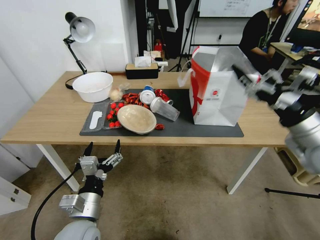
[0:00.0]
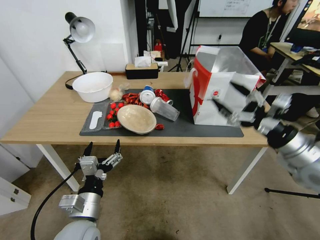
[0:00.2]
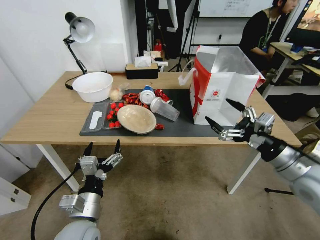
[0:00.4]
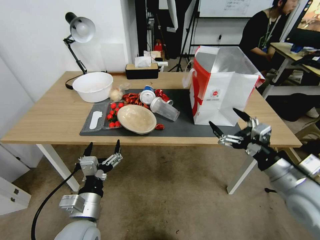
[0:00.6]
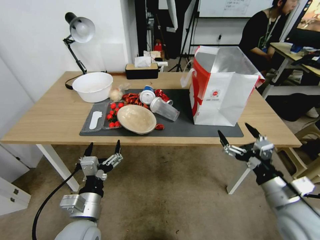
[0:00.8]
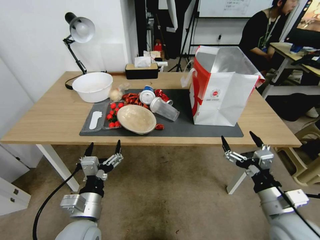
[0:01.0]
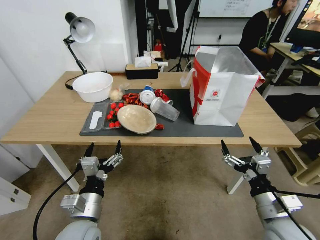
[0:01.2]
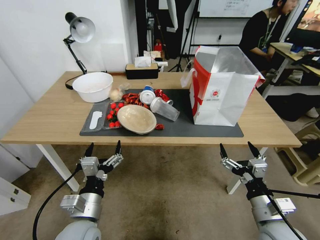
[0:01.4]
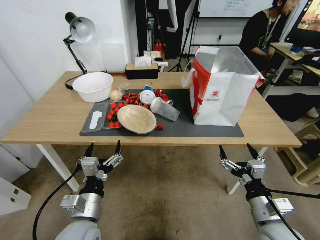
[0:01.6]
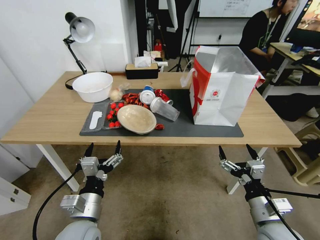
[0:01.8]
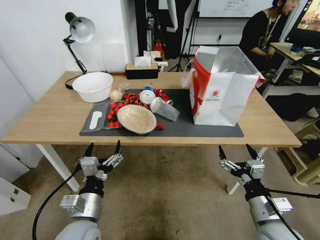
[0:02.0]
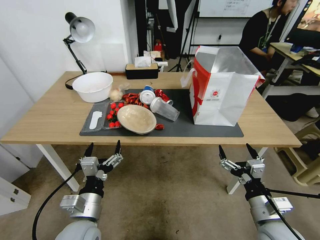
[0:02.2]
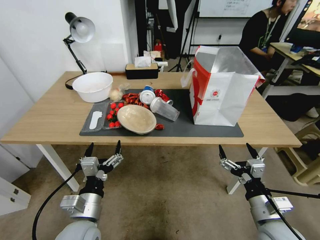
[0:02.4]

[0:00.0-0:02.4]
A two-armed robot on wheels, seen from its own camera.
Task of the whole recording: Pick up the food delivery bag from the floor and place it on the table.
0:00.0 to 0:01.2: The right gripper is displaced downward and backward by about 25 cm.
0:01.2 to 0:02.4: The grippers move only a little.

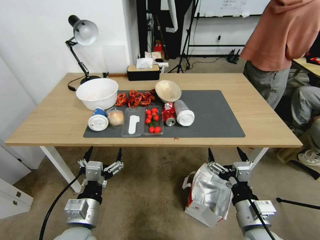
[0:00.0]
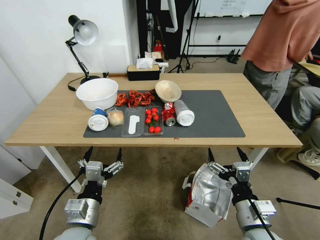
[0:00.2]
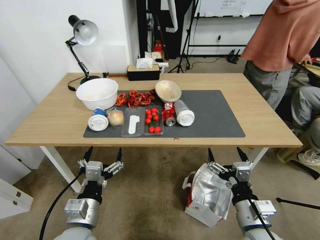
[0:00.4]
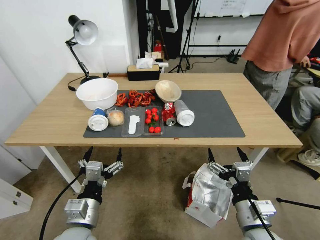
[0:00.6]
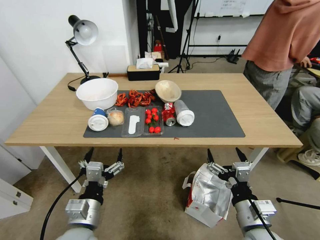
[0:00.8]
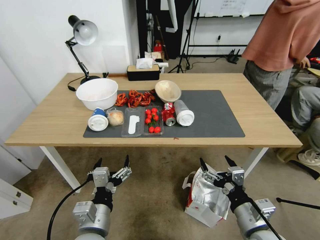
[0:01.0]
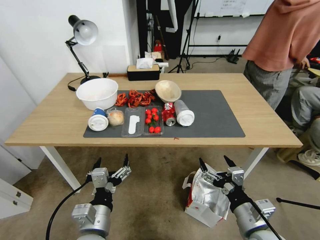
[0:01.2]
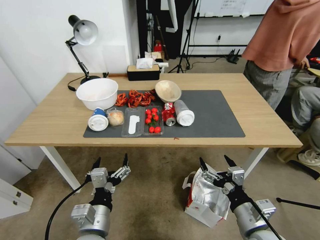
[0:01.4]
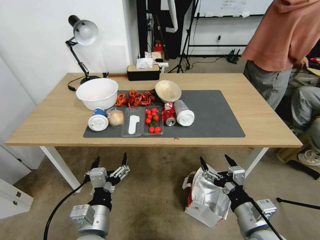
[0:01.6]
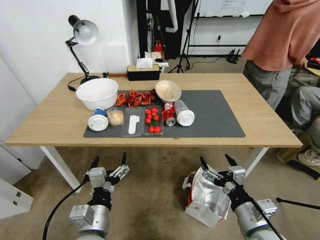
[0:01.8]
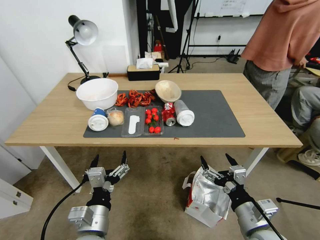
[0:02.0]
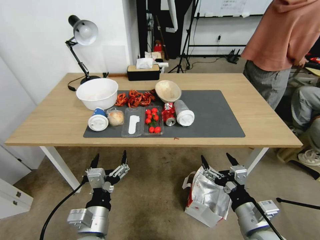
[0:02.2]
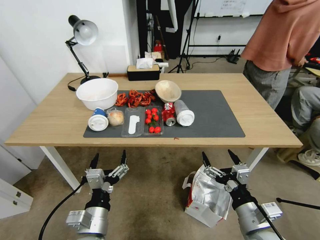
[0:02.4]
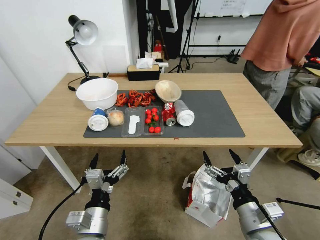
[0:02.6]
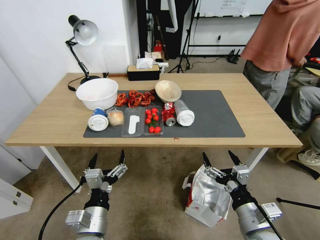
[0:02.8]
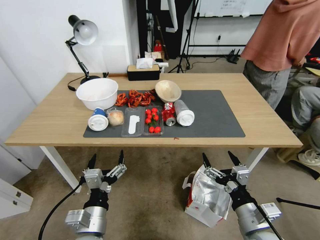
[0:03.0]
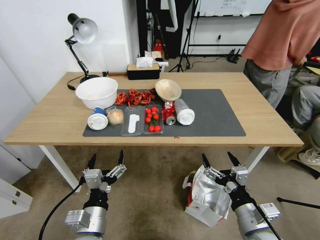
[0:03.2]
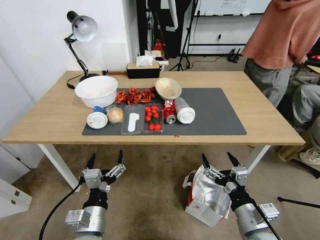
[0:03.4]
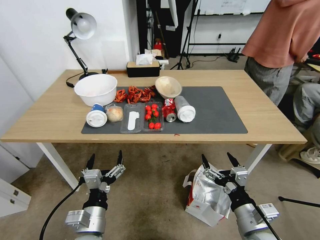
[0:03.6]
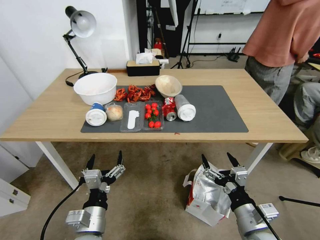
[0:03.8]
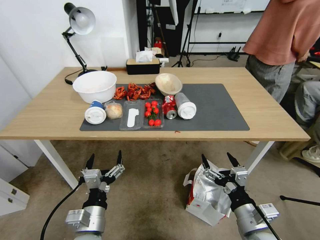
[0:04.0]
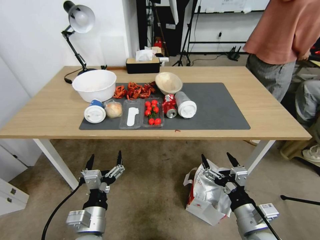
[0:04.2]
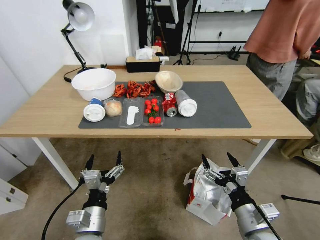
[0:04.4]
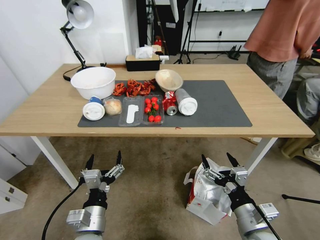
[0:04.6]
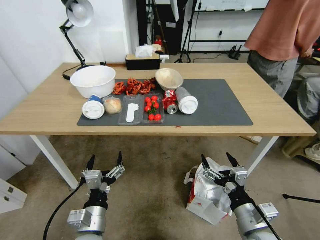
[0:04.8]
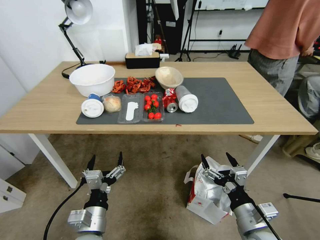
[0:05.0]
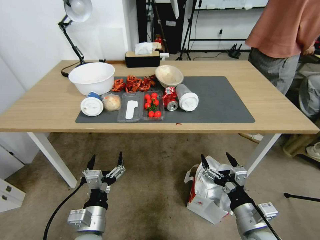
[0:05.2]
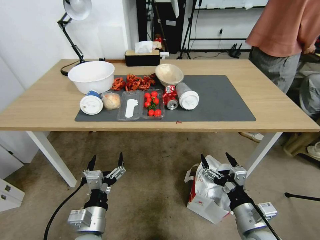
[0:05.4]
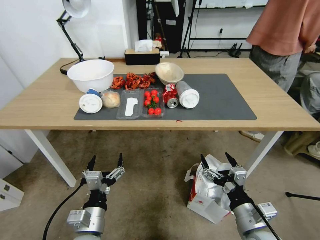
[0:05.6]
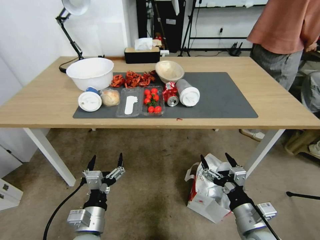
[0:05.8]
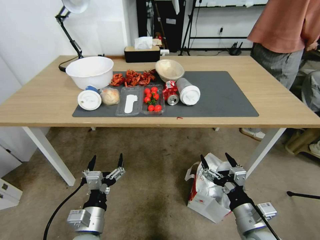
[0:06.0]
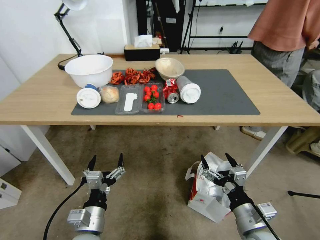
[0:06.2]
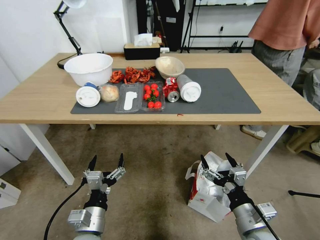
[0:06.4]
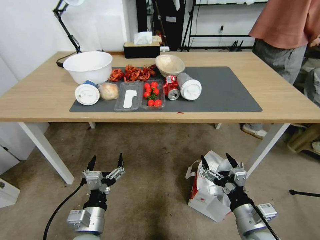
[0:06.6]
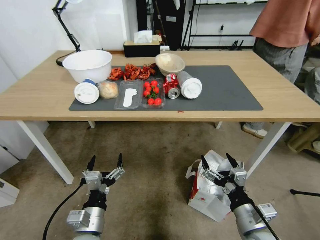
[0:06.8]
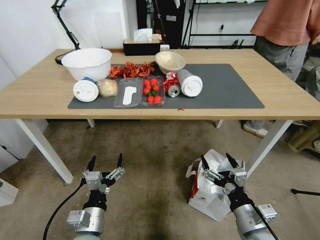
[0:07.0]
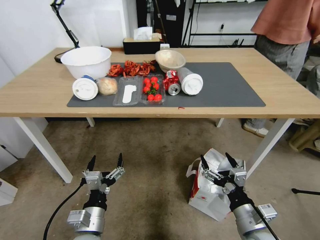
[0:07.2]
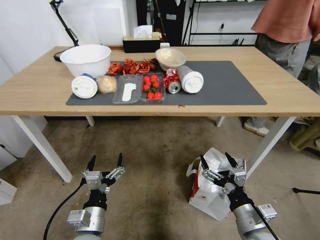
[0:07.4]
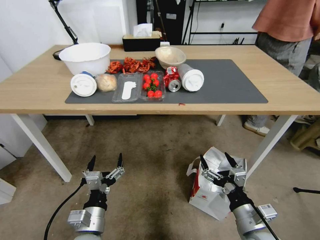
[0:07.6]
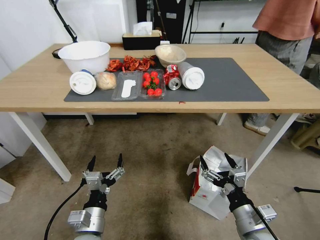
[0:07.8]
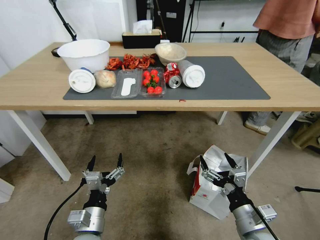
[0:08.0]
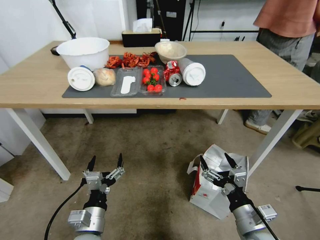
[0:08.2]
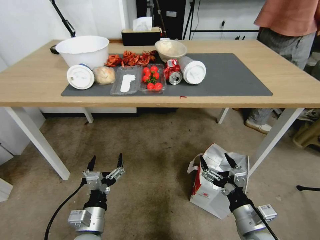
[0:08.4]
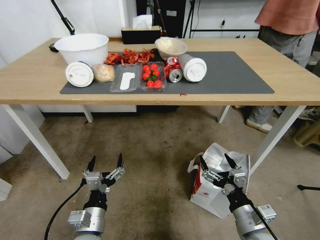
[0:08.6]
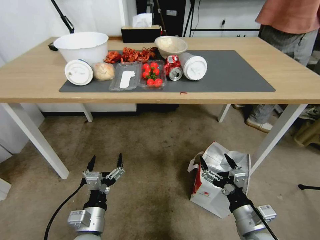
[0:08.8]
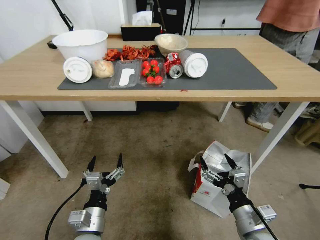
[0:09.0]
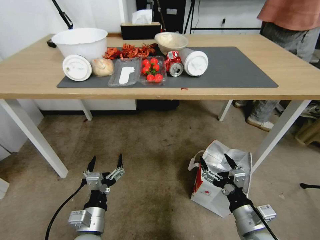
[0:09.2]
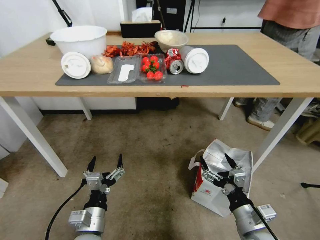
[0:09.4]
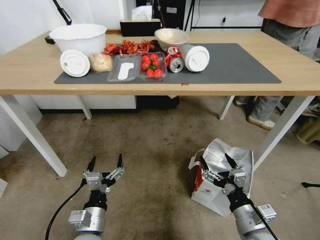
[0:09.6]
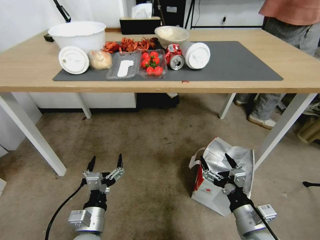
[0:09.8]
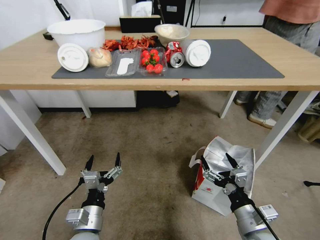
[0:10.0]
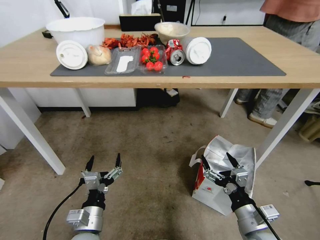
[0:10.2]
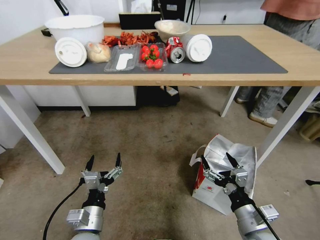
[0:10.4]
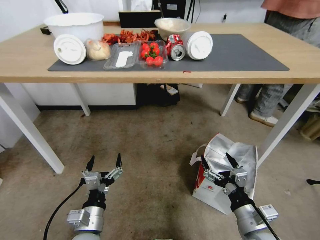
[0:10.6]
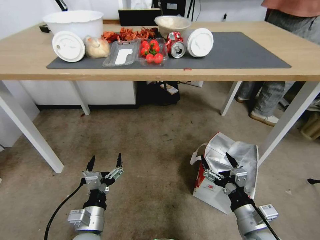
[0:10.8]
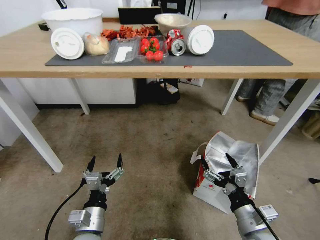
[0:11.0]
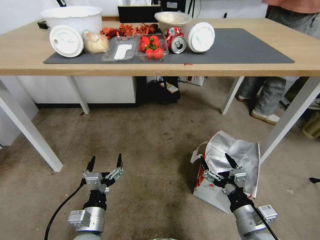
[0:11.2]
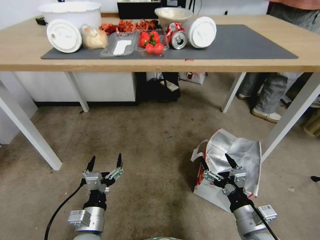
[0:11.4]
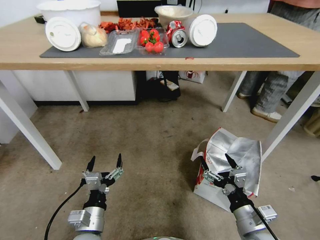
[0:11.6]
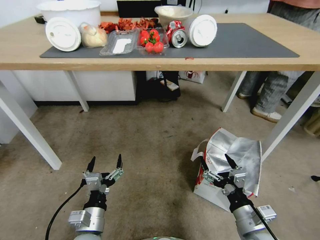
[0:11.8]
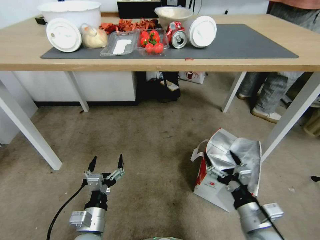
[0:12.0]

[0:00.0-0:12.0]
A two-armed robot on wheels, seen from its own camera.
Task of the whole recording: Pick up the food delivery bag from the floor and place it on the table.
0:01.6 to 0:03.0: There are only small adjustments of the grippers.

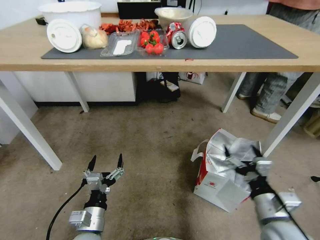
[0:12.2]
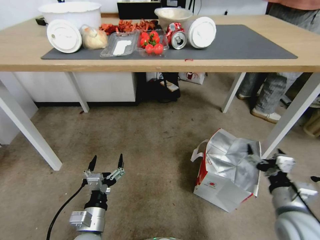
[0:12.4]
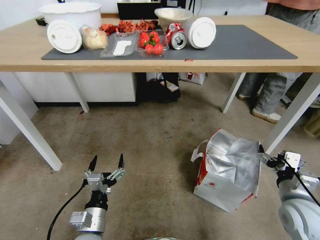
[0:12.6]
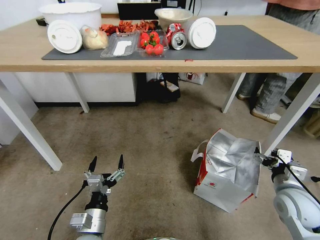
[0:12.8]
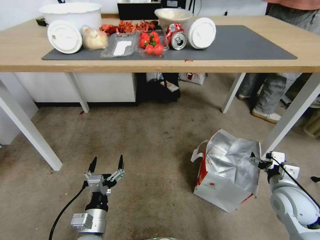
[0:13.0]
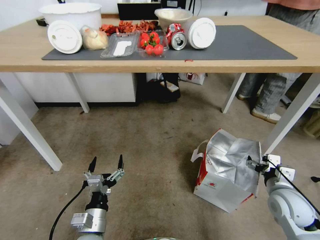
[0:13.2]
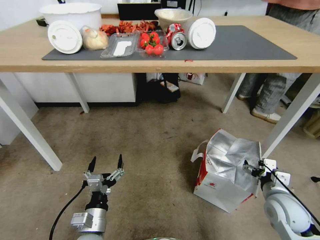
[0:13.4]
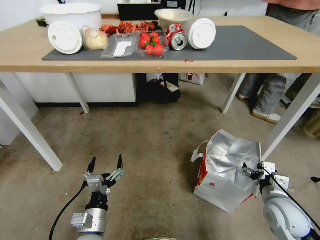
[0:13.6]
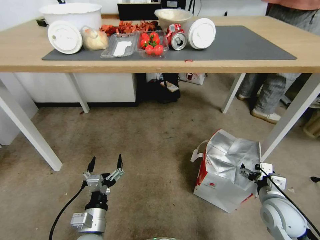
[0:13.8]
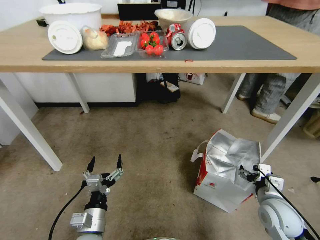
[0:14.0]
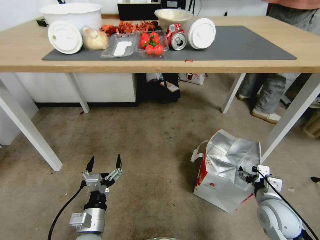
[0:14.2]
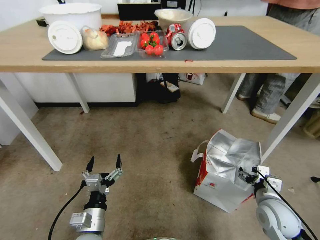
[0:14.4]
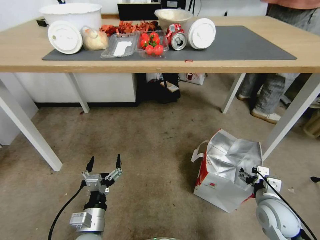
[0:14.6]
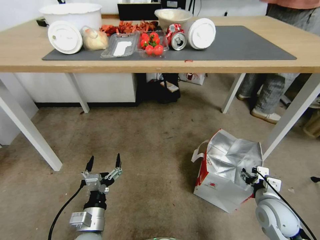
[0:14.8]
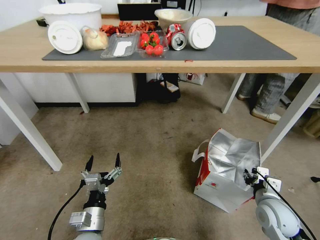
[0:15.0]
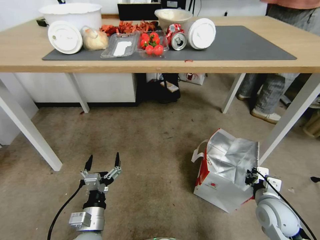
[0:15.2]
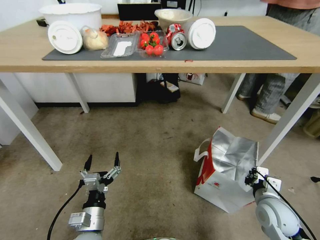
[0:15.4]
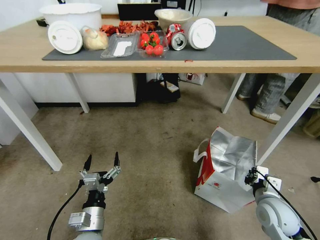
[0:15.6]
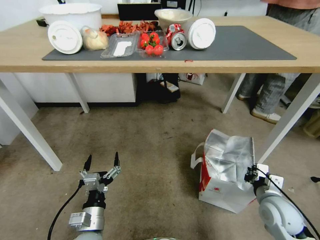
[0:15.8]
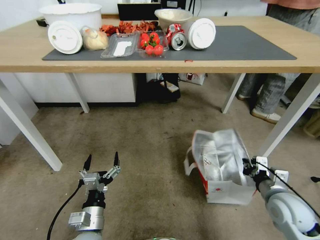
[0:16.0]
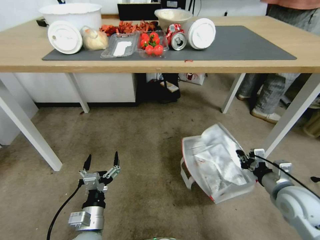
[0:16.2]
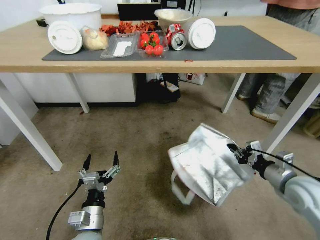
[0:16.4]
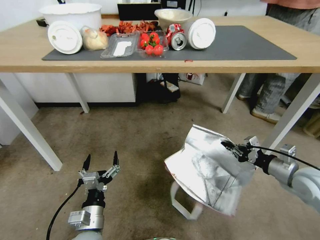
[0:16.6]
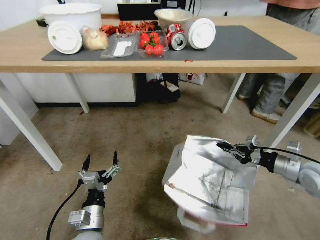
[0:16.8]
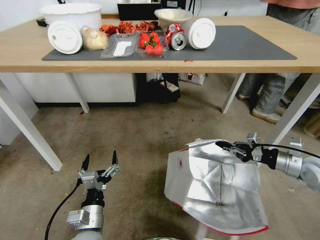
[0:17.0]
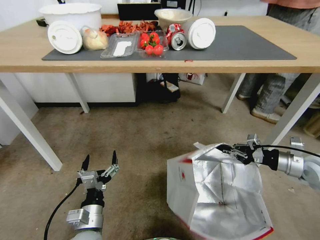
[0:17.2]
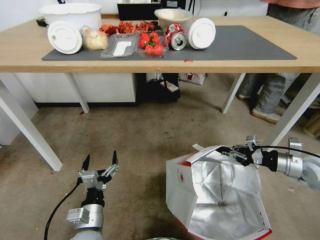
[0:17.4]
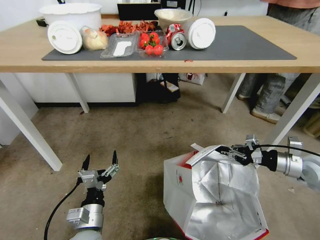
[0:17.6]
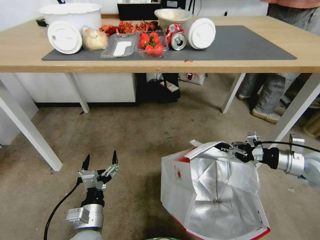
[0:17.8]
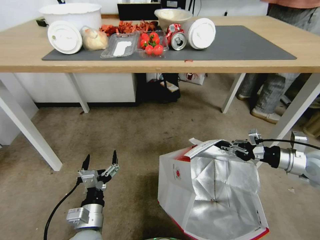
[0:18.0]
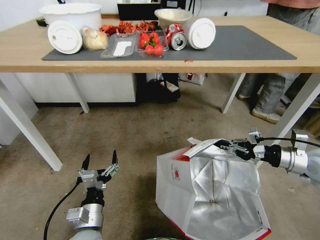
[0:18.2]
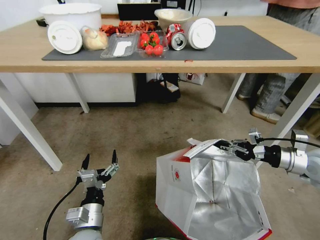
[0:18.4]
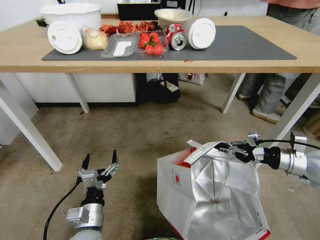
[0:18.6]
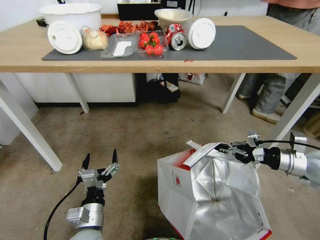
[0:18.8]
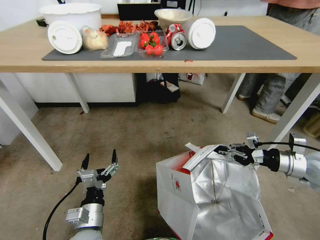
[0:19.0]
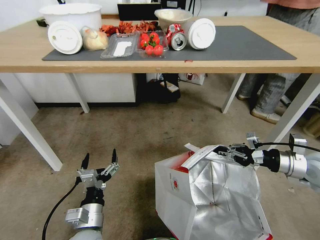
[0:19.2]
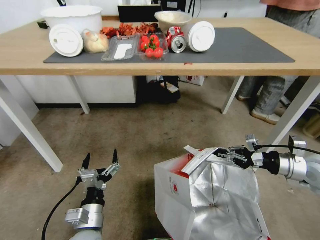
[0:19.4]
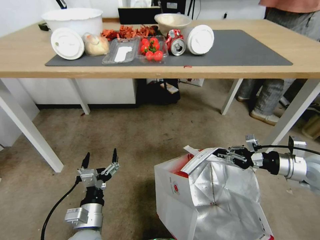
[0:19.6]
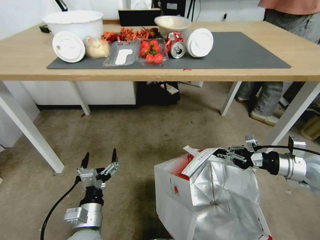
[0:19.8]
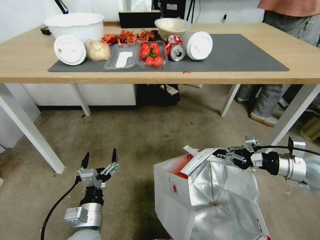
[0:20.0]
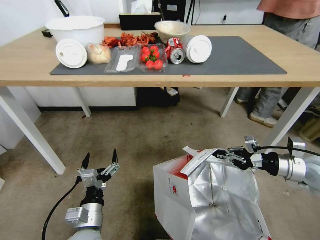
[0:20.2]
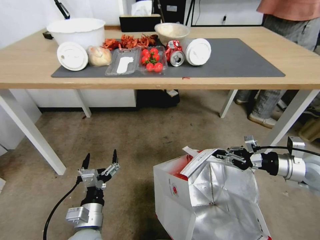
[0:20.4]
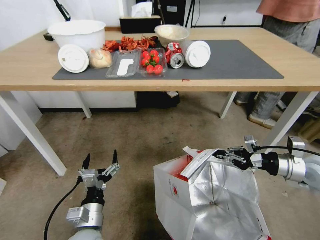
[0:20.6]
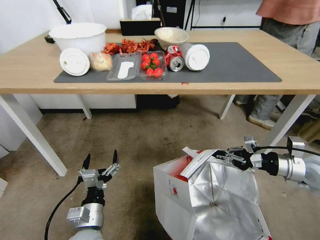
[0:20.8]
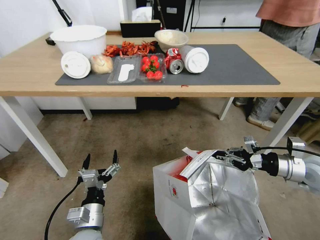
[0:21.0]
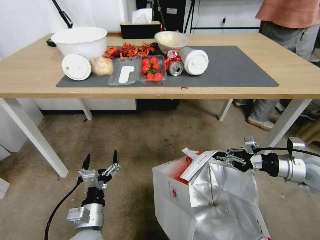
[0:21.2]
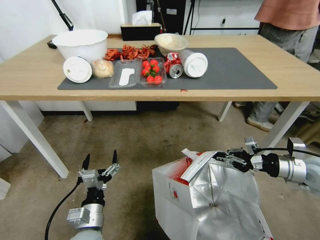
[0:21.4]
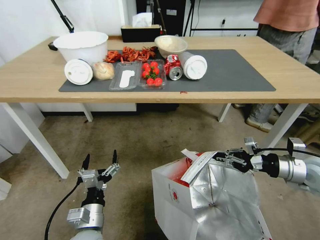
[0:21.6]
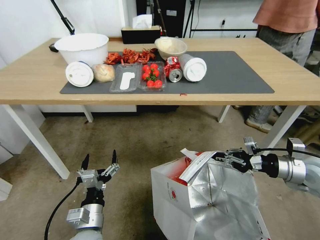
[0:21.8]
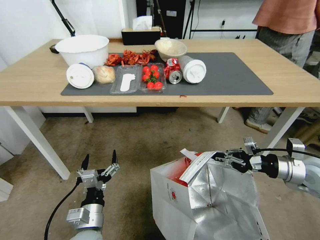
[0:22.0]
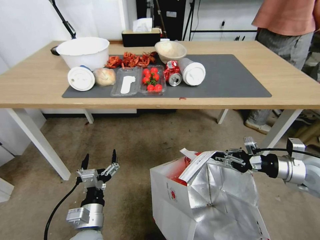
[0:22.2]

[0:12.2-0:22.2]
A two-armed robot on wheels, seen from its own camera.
Task of the whole recording: Pick up the food delivery bag from the floor and place it on the table.
0:12.2 to 0:13.6: The right gripper moves forward, to the right and downward, approximately 10 cm.
0:13.6 to 0:15.0: The right gripper closes.
0:15.0 to 0:16.4: The right gripper travels upward and to the right by some 10 cm, and closes up.
0:16.4 to 0:18.0: The right gripper travels forward and to the right by roughly 10 cm.
0:18.0 to 0:19.4: The grippers move only a little.
